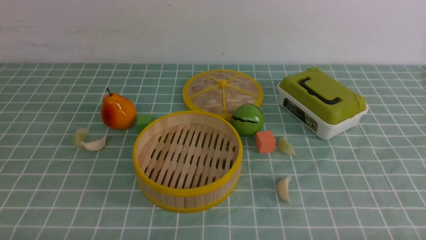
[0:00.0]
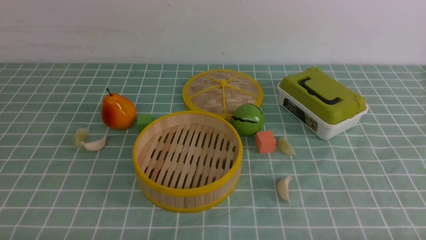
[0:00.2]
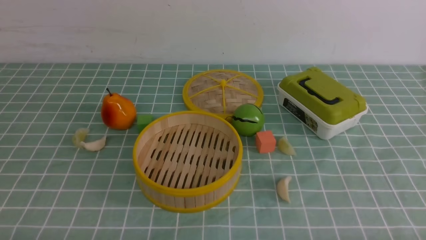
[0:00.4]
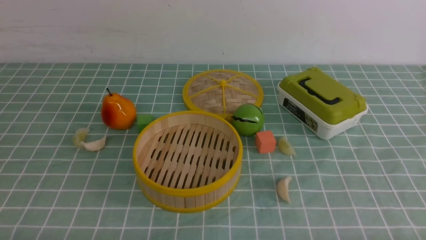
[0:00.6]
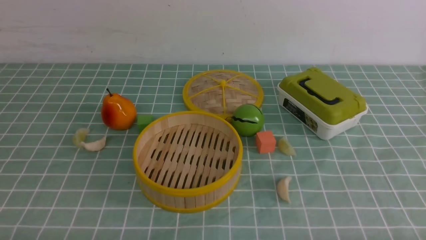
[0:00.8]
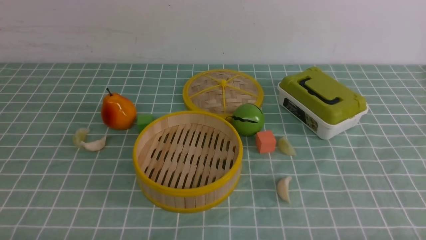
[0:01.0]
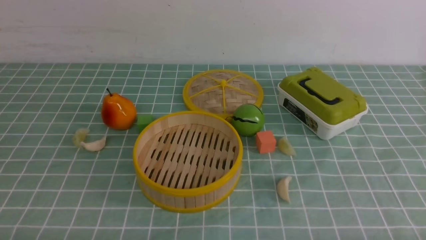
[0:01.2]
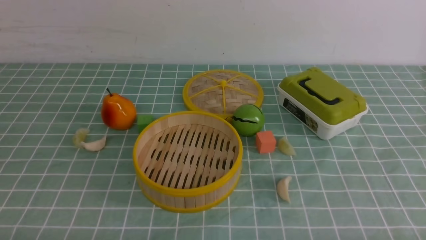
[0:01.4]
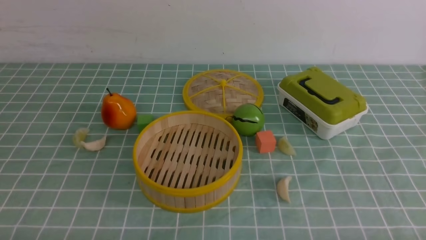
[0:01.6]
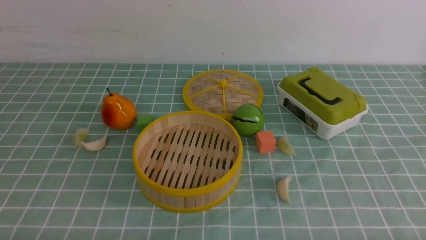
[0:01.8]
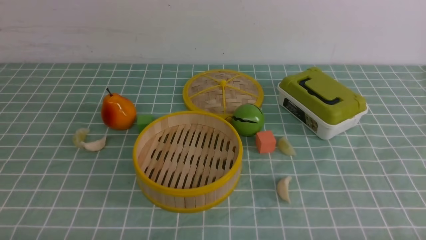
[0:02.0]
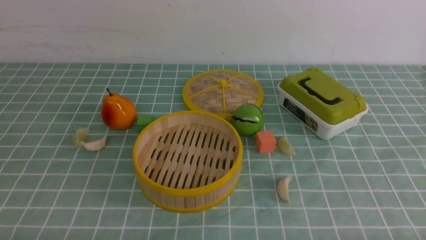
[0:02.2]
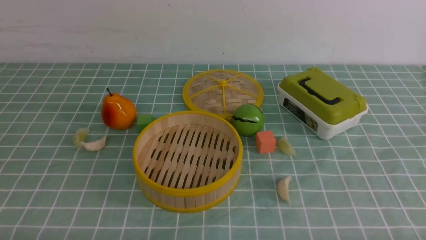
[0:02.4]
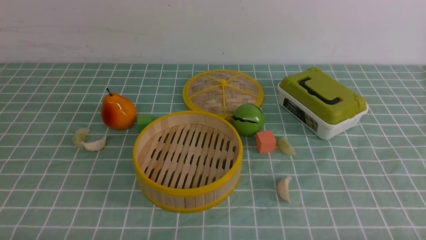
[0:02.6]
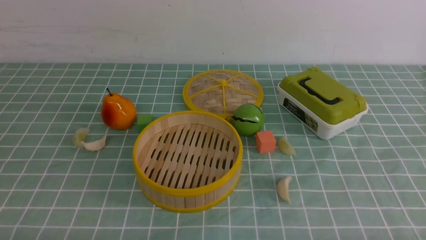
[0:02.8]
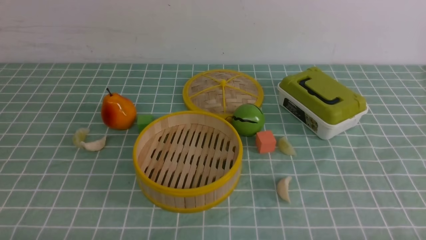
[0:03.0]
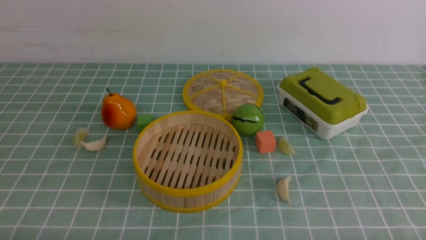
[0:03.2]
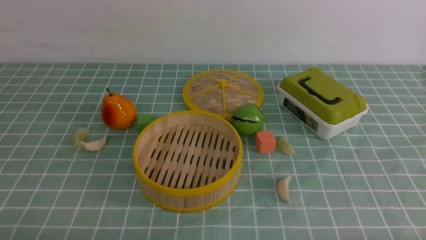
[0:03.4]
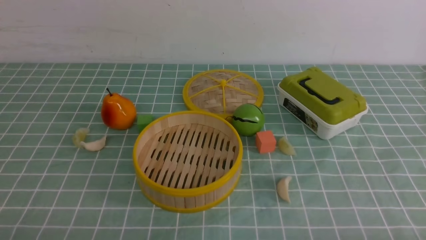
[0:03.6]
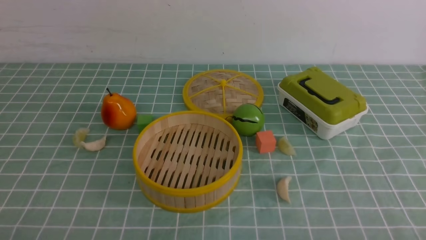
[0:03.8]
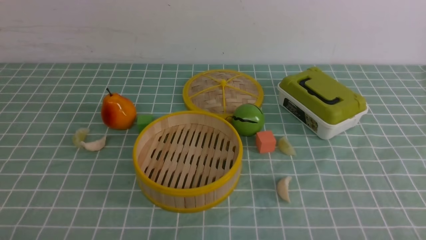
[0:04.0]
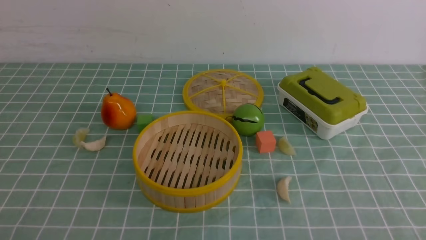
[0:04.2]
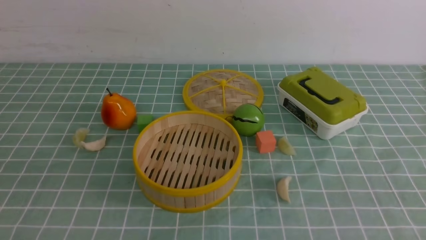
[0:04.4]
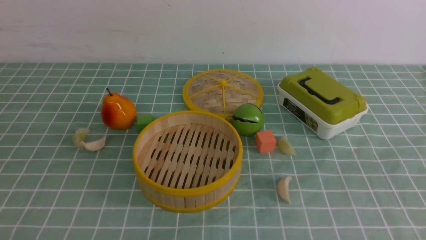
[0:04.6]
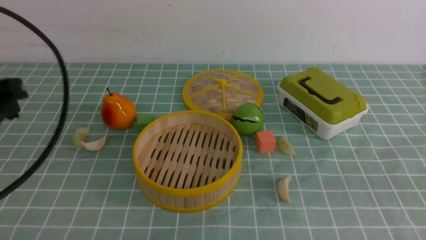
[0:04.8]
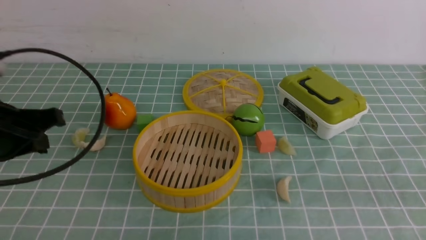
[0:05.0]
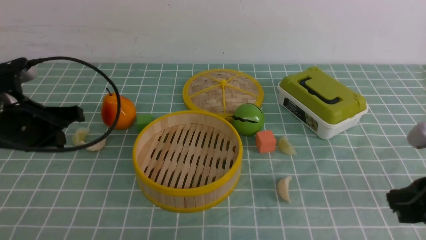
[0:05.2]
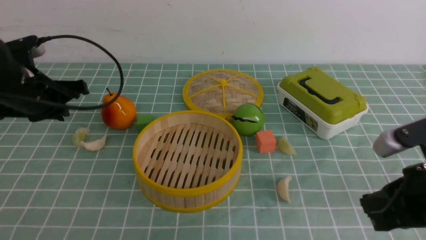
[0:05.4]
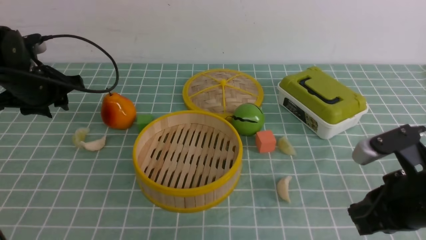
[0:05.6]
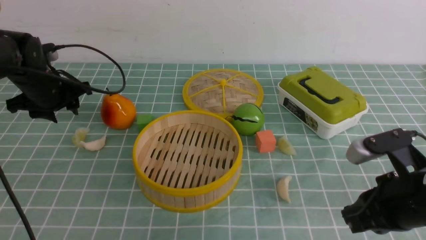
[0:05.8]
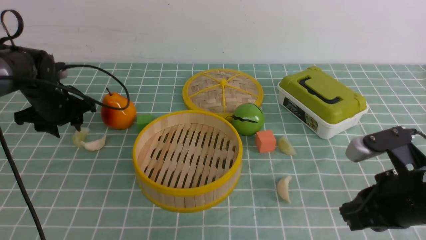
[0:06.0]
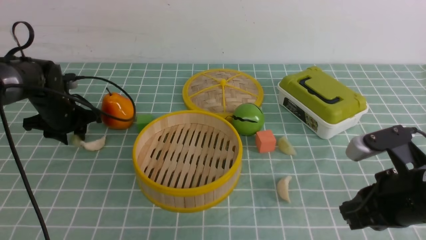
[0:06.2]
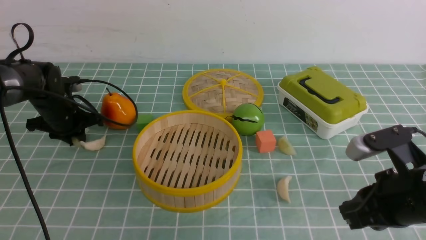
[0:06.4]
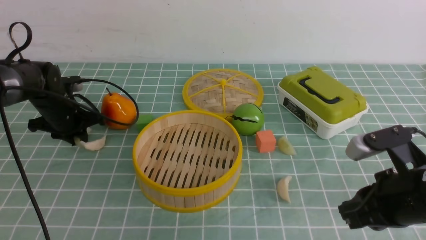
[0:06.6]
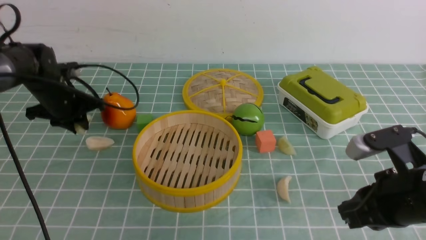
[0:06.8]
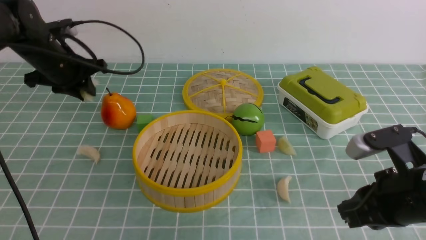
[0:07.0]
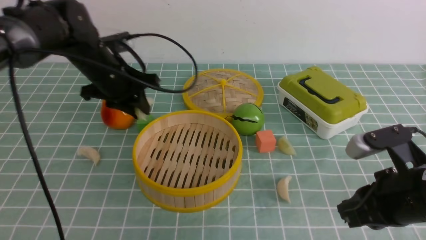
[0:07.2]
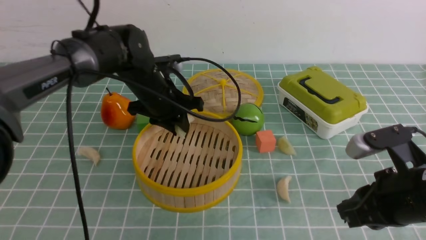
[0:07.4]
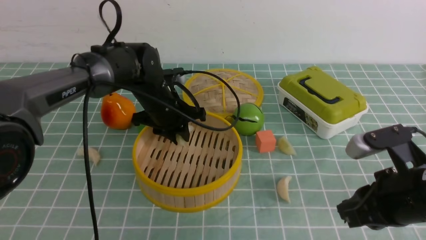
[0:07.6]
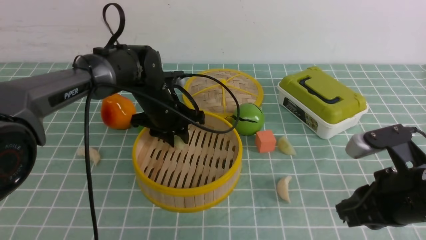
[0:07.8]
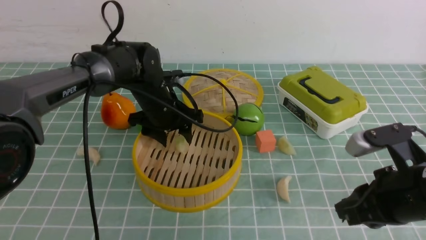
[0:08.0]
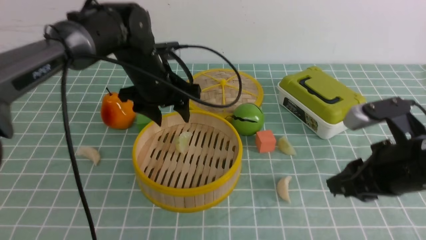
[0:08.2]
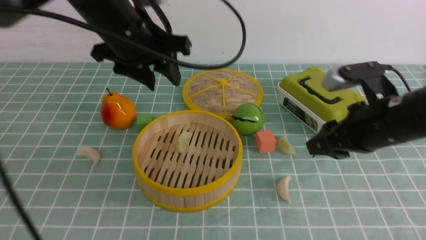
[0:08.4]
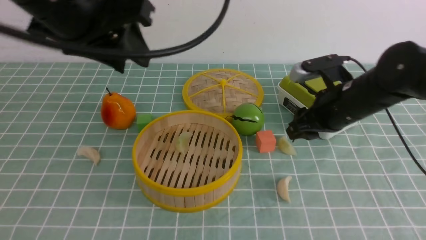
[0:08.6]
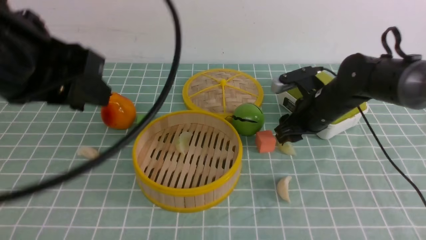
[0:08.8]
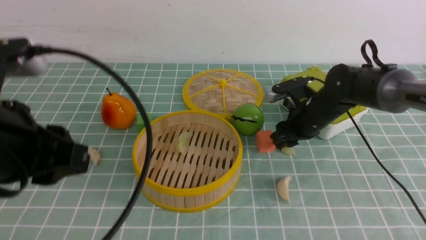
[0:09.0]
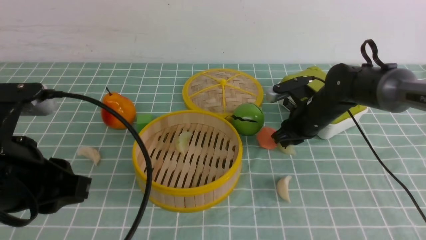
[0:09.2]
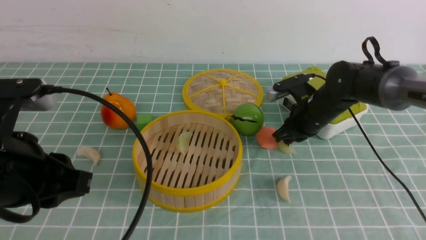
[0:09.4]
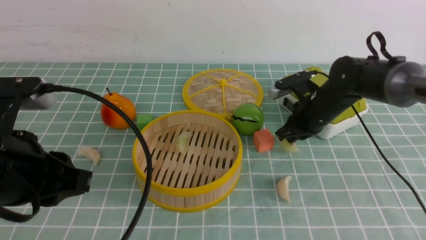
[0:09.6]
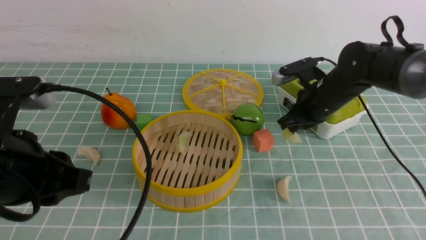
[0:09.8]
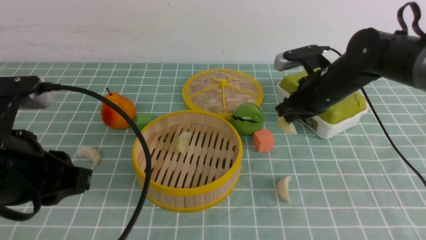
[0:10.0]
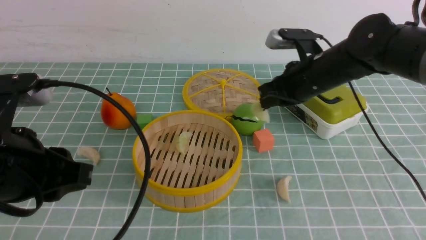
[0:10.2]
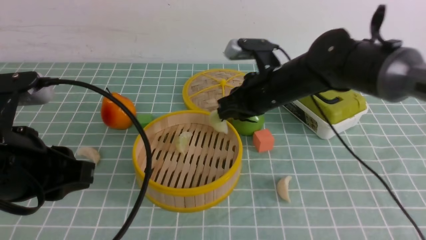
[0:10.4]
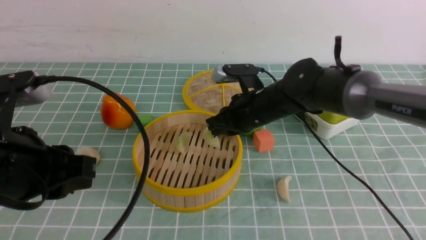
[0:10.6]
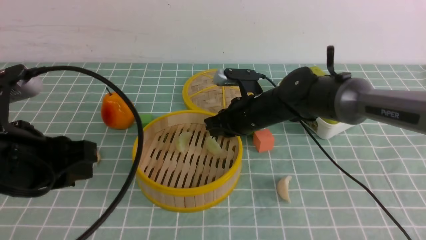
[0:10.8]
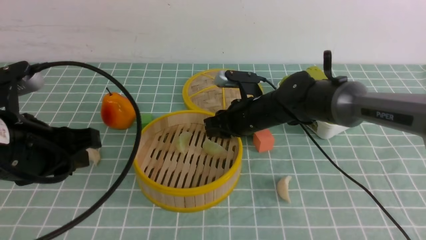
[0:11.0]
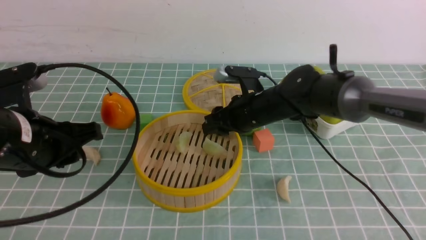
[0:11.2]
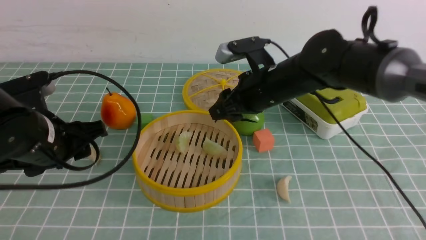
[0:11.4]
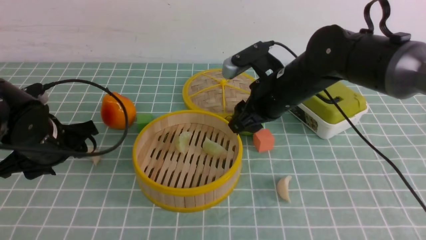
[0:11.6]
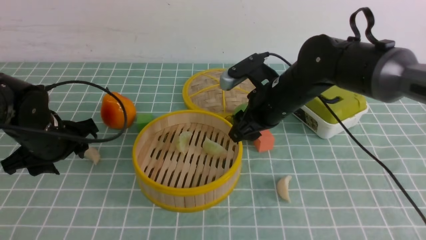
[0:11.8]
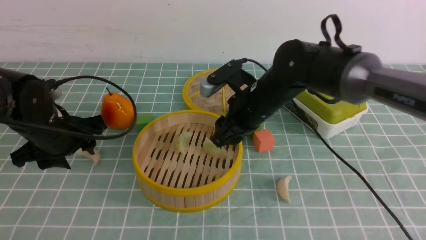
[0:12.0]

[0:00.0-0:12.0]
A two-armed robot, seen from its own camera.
Task of the whole recording: put the dumplings into the steamer on the table with the blue tablecloth.
Step, 0:00.0 to 0:07.2: use the left arm to grab a dumpling.
Step, 0:07.4 to 0:08.2: use the left arm to put the dumpling into the steamer.
Step, 0:08.4 to 0:09.6: use the right arm to grab a dumpling.
Step, 0:09.8 to 0:11.2: use the right arm to put the dumpling into the steamer.
0:04.4 to 0:06.0: The left gripper heads forward, covering some 40 cm, and opens; the right gripper is displaced forward, downward and to the left by about 20 cm.
0:06.0 to 0:07.6: The left gripper shifts about 20 cm to the right, and closes up.
0:07.6 to 0:09.0: The right gripper shifts some 20 cm forward, and opens, while the left gripper moves backward and upward, about 30 cm.
0:09.0 to 0:10.4: The right gripper moves upward and to the left, roughly 10 cm, and closes its fingers. Meanwhile the left gripper shifts about 5 cm downward.
0:10.4 to 0:12.0: The left gripper is displaced forward and downward by roughly 20 cm, and opens up. The right gripper opens up.

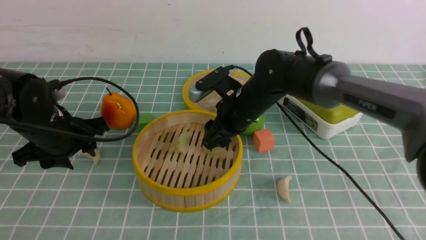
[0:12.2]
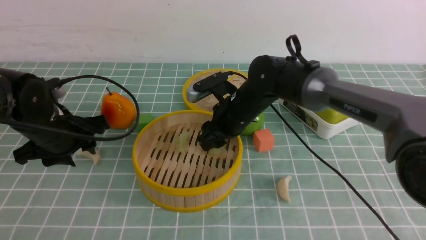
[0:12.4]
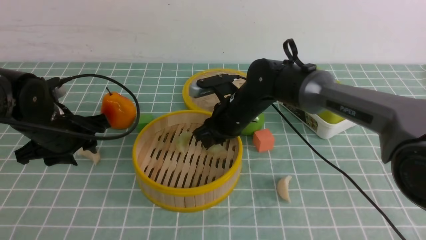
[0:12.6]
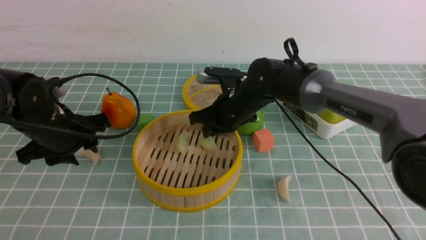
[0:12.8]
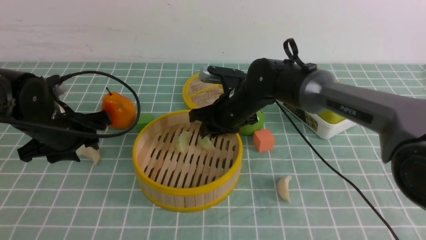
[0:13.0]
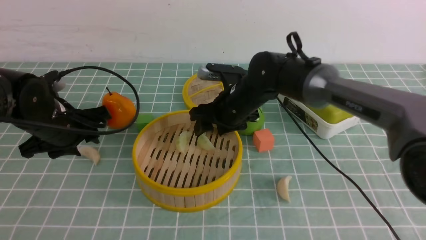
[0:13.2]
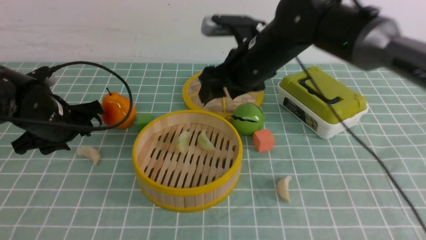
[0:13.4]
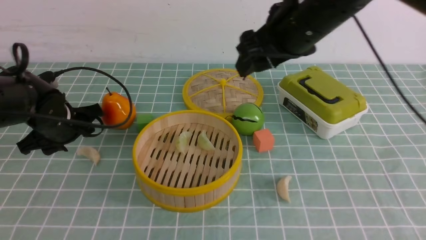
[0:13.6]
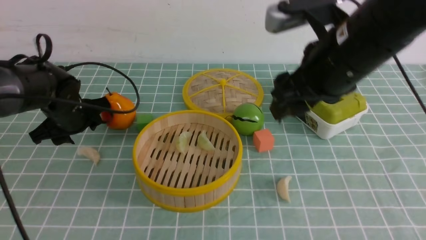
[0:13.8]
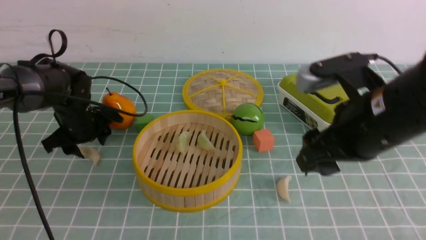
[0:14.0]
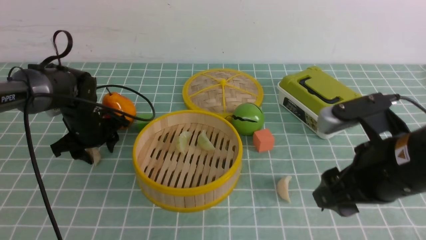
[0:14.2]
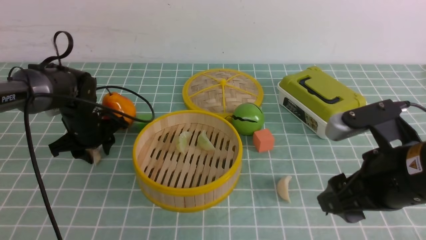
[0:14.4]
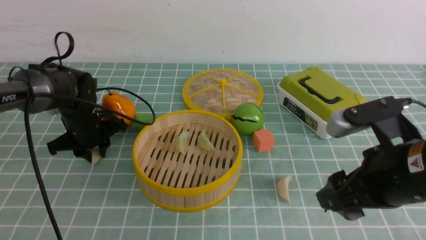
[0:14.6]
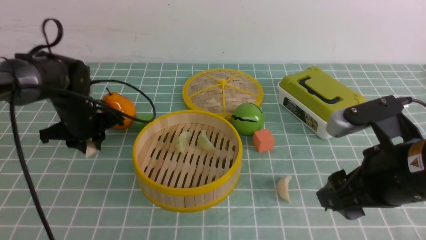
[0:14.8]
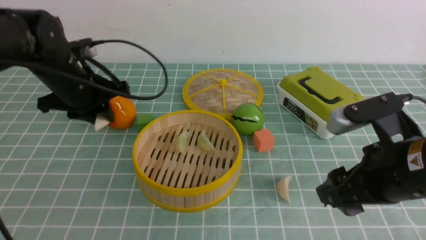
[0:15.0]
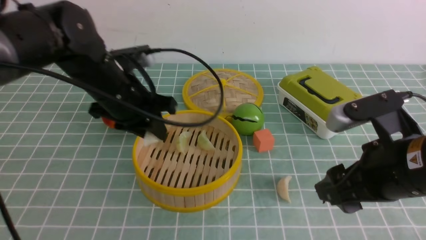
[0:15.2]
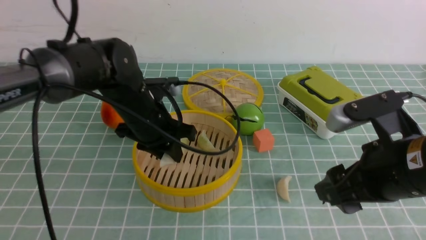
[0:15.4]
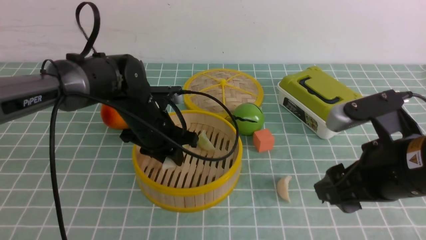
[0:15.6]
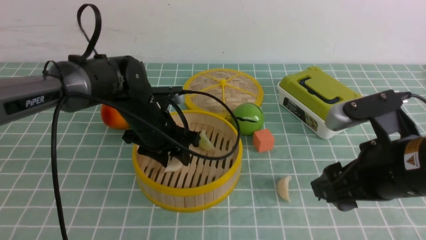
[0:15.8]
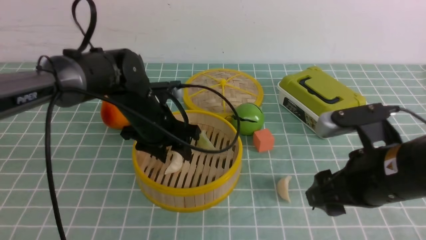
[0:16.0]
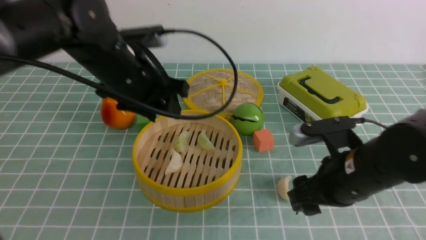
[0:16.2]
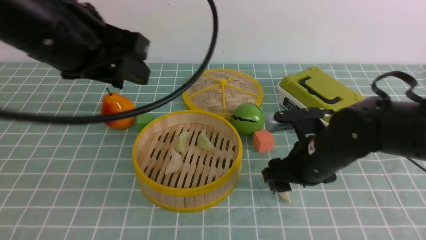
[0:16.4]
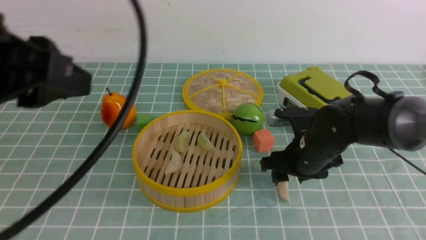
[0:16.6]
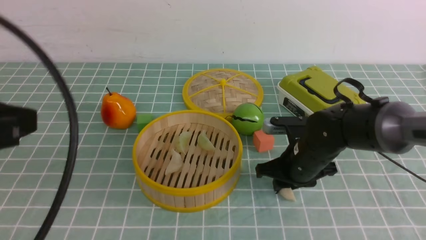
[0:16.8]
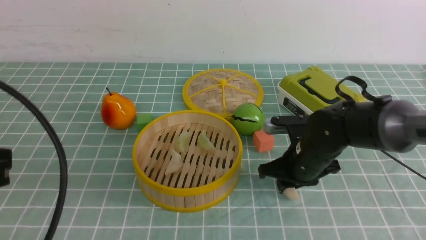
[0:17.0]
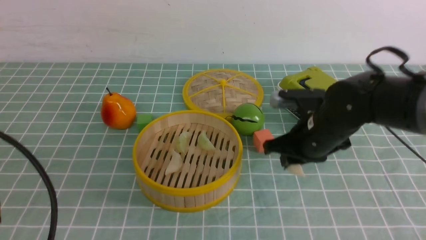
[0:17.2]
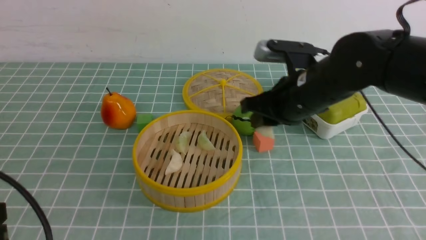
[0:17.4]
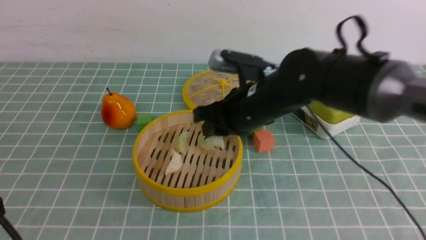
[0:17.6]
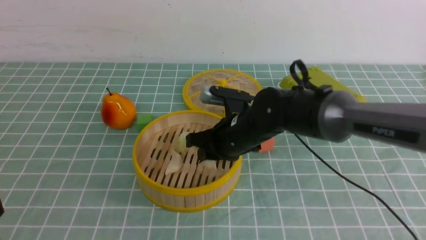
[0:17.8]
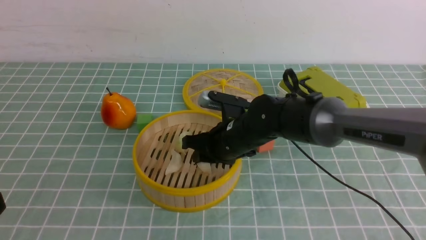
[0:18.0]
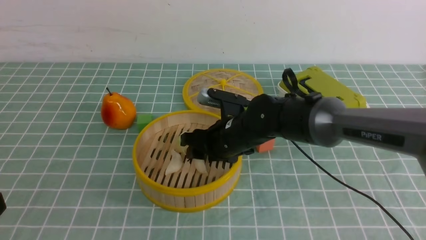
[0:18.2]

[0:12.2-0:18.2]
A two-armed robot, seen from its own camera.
Task of the whole recording: put the dumplings into the steamer on the table with the blue tablecloth.
Step, 0:12.2 to 0:15.0: use the left arm to grab a dumpling.
Step, 0:15.4 to 0:16.2: use the left arm to put the dumpling into the steamer.
Step, 0:16.4 to 0:17.2: use the right arm to grab a dumpling.
0:12.2 to 0:13.8: The right gripper heads upward, backward and to the right, covering roughly 20 cm, and closes, then opens again; the left gripper is displaced forward by roughly 5 cm.
0:13.8 to 0:15.2: The left gripper heads to the right and upward, covering about 10 cm, and closes up. The right gripper heads backward, downward and to the right, covering about 15 cm.
0:15.2 to 0:16.6: The right gripper shifts roughly 15 cm forward and downward. Meanwhile the left gripper travels backward and upward by about 25 cm.
0:16.6 to 0:18.2: The left gripper goes some 20 cm backward, downward and to the left. Meanwhile the right gripper moves to the left, roughly 10 cm.
